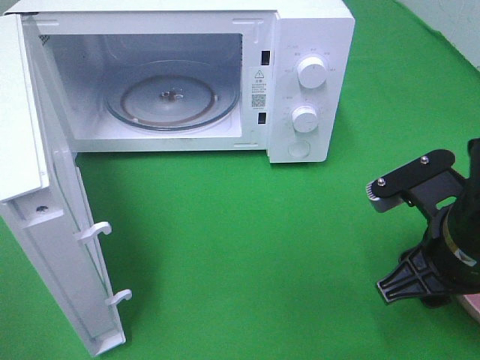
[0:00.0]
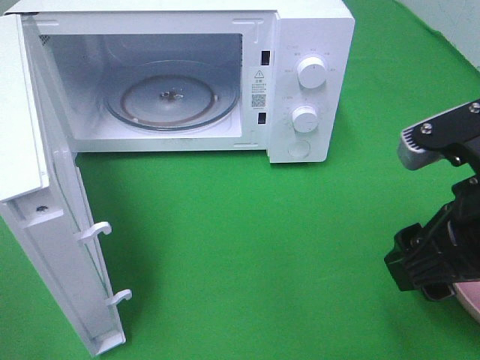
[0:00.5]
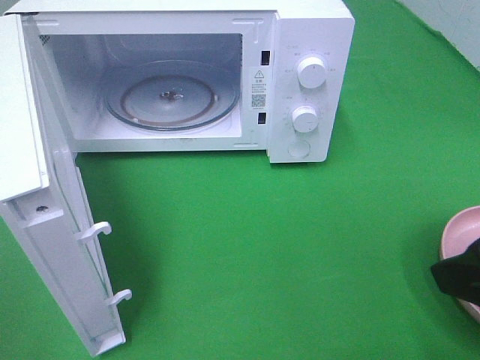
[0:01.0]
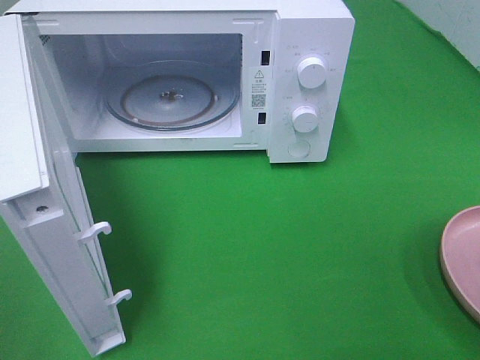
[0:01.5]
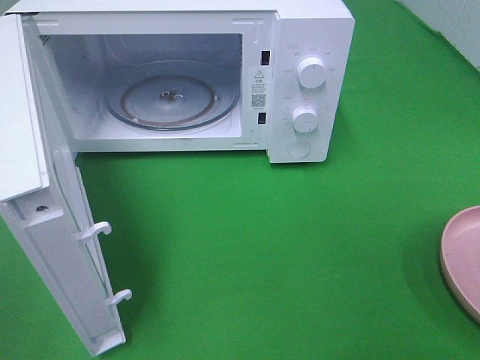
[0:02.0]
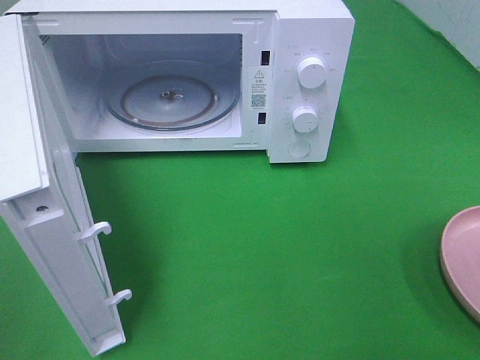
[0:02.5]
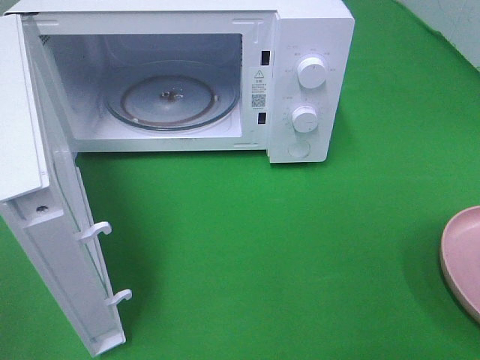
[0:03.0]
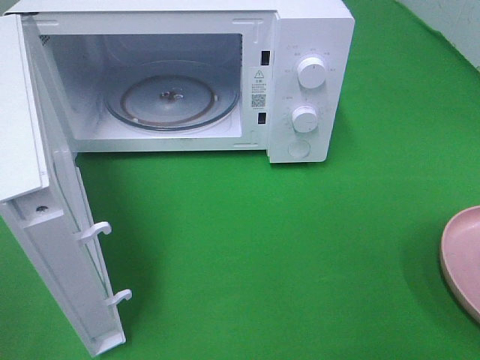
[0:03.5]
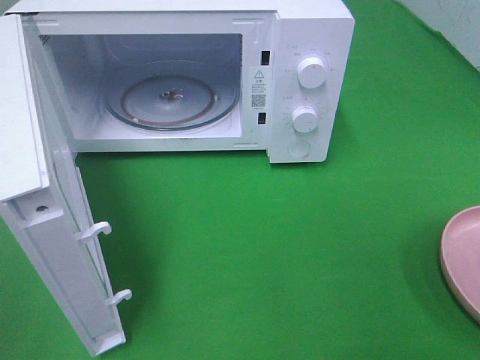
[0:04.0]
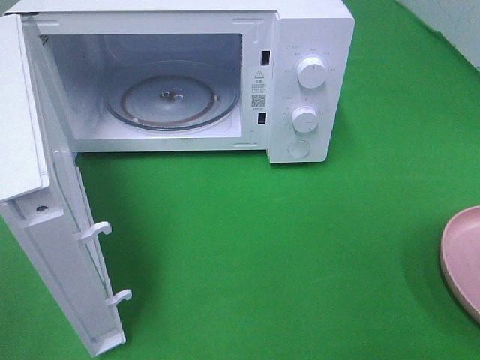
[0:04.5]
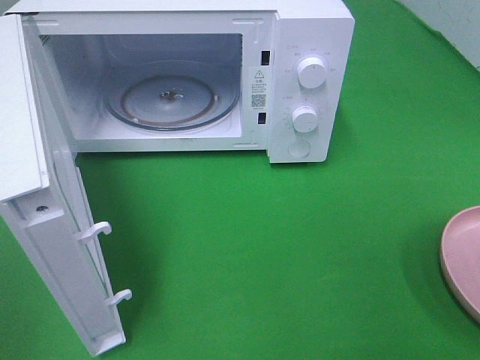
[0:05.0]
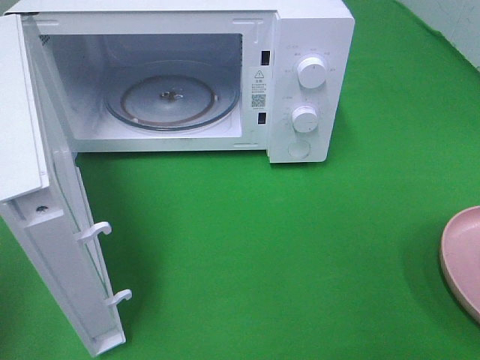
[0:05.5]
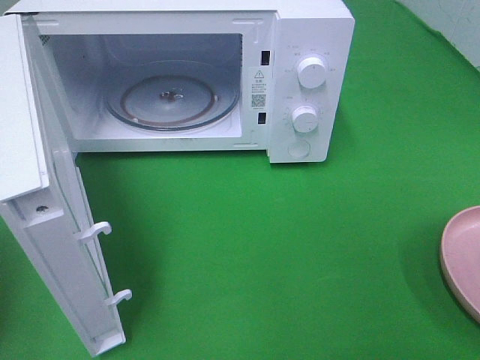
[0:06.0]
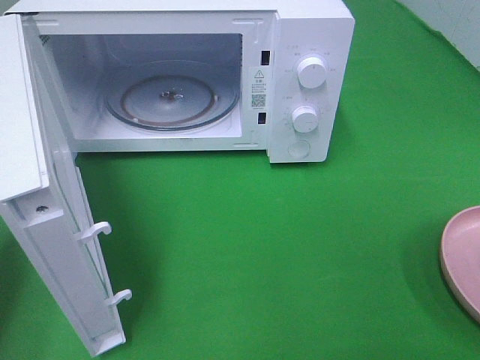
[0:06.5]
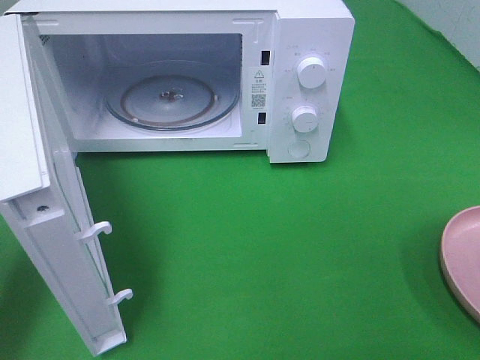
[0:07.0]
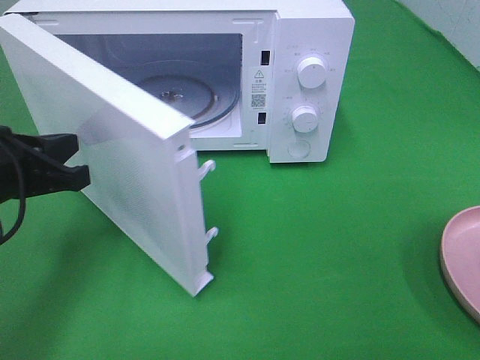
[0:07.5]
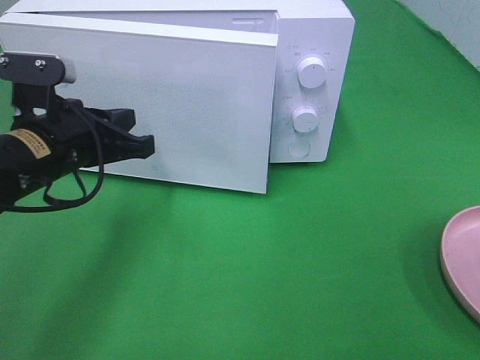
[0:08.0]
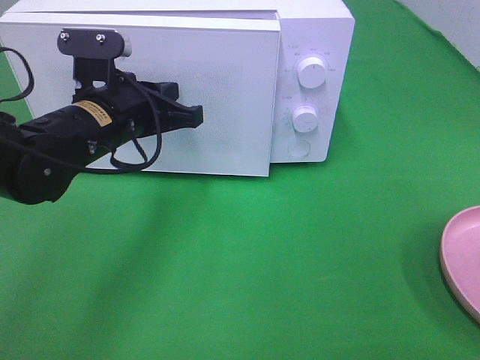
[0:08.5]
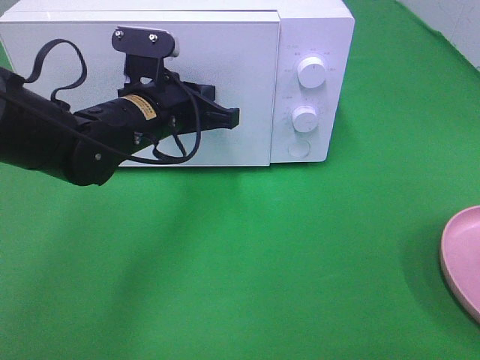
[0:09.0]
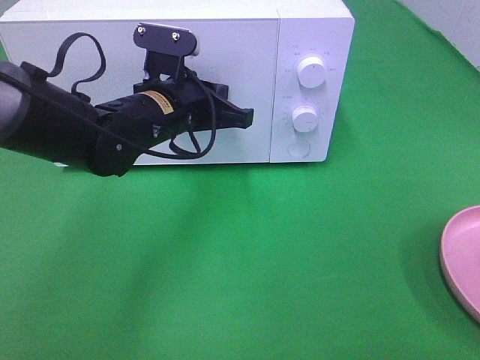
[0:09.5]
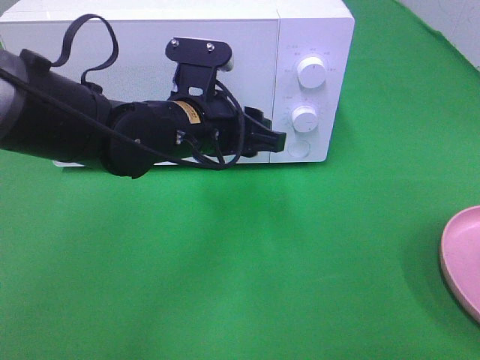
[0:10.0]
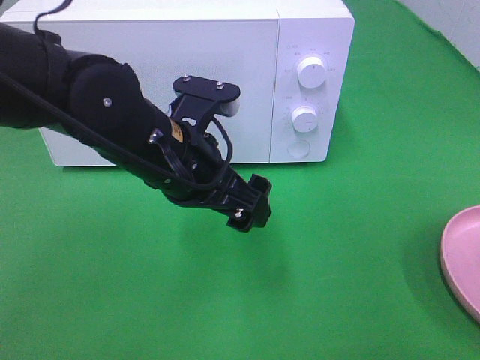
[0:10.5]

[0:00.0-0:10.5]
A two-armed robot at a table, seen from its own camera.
Task of the whole recording: Heat the burger.
Step, 0:00.5 to 0:09.5: Left hand: close the microwave door.
0:00.0 to 0:02.0: The right gripper heads backward, upward and to the right, covering some 20 cm.
0:04.0 to 0:06.5: The left gripper moves forward and downward, some 20 cm, and closes up.
0:06.5 to 0:08.5: The left gripper moves to the right and forward, roughly 25 cm.
0:08.5 to 0:10.5: The left gripper heads to the right and backward, covering roughly 10 cm, and opens.

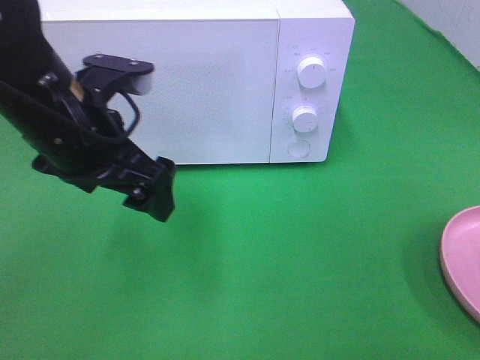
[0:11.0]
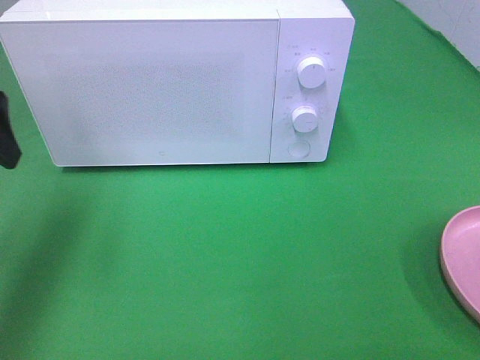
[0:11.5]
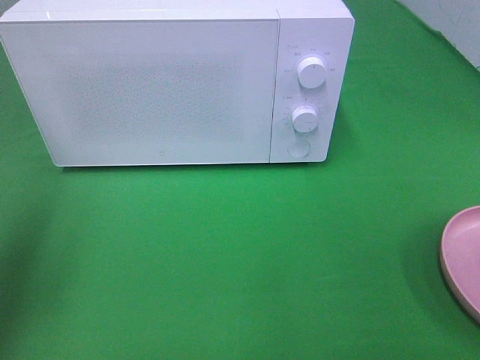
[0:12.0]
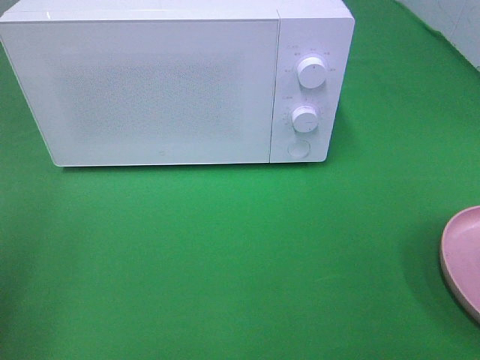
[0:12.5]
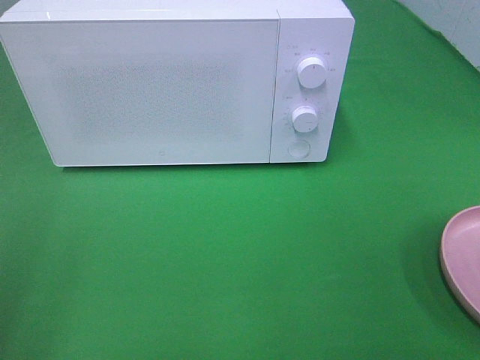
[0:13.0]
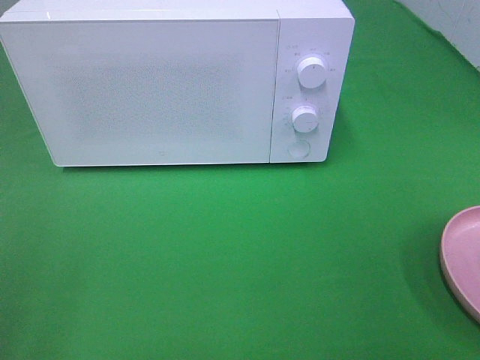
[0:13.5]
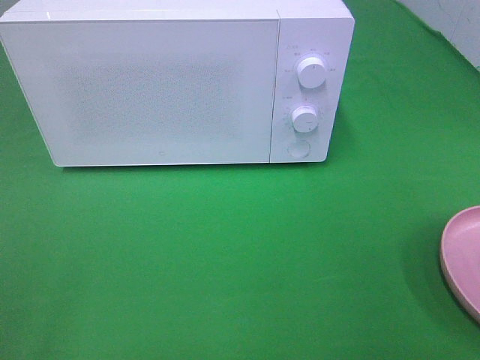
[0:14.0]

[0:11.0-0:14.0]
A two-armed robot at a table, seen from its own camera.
Task of the whole recording: Heat the burger.
0:11.0 to 0:12.5: The left gripper shifts about 25 cm to the left and backward.

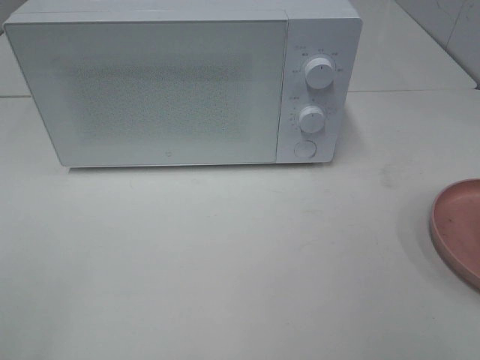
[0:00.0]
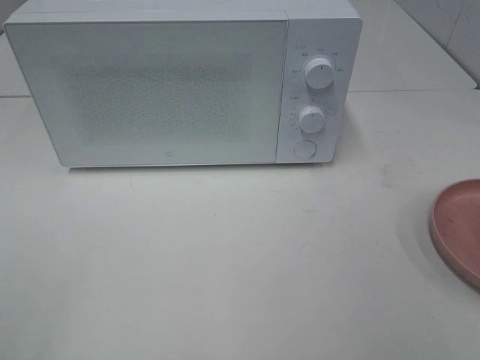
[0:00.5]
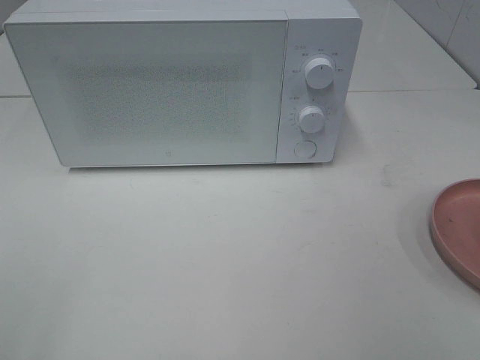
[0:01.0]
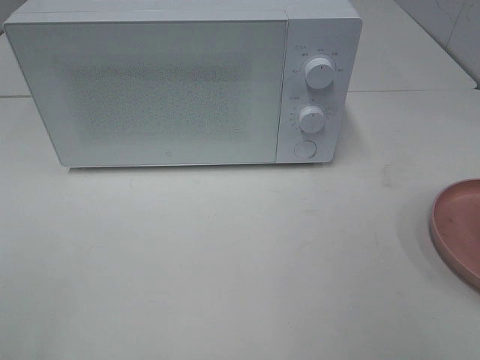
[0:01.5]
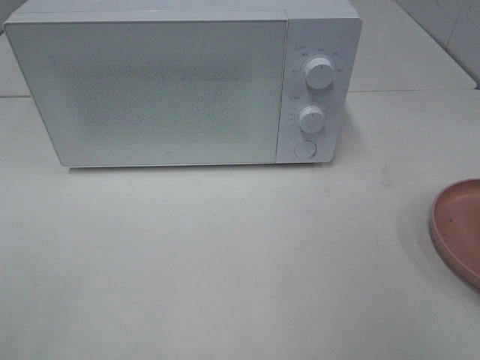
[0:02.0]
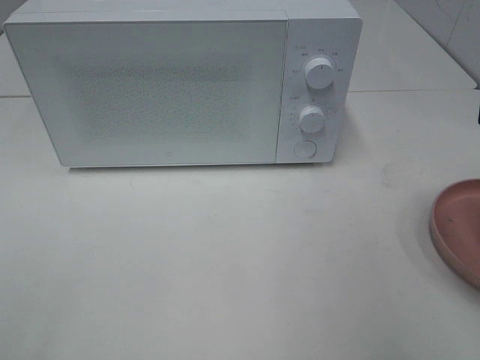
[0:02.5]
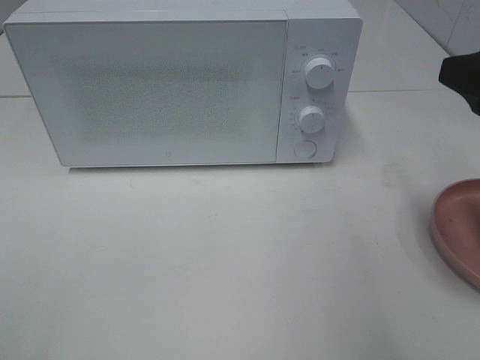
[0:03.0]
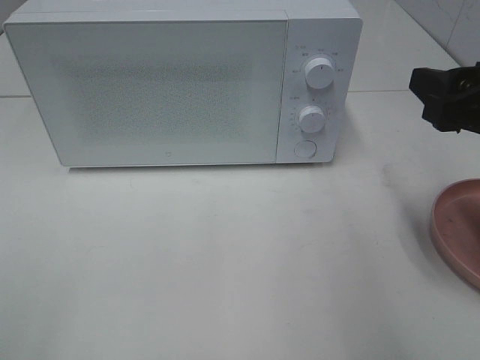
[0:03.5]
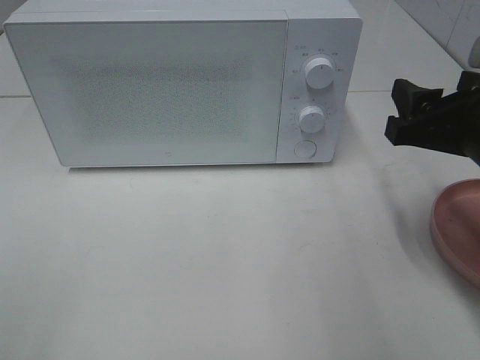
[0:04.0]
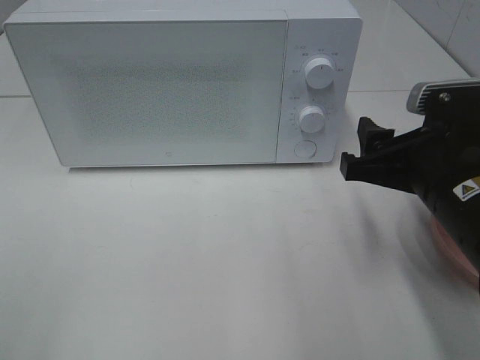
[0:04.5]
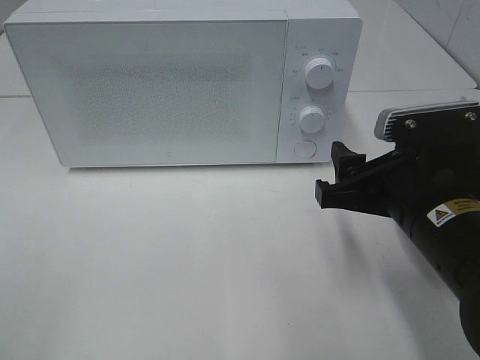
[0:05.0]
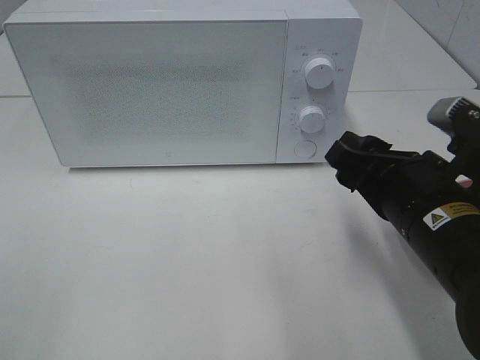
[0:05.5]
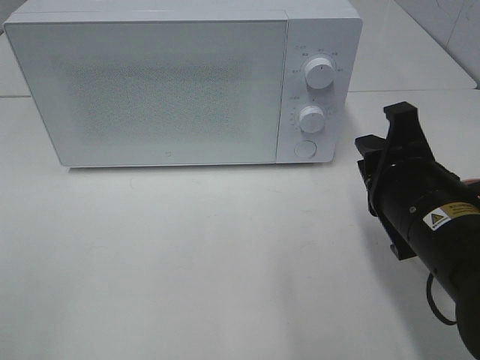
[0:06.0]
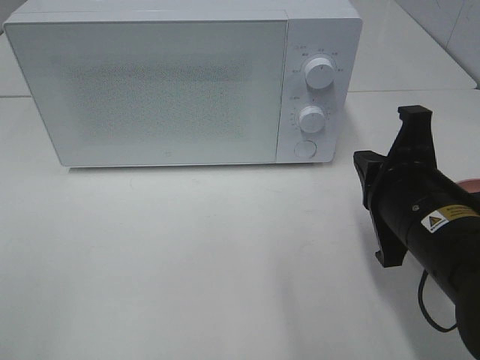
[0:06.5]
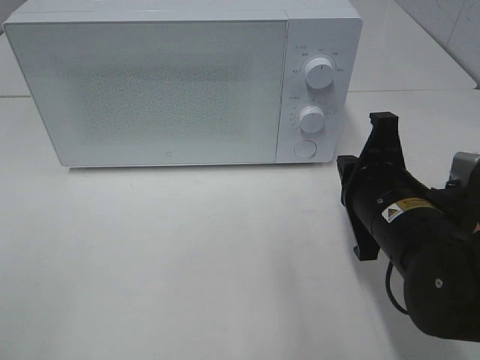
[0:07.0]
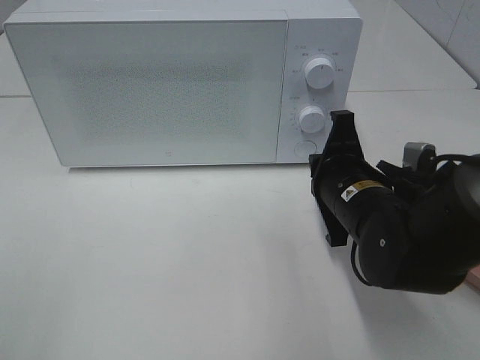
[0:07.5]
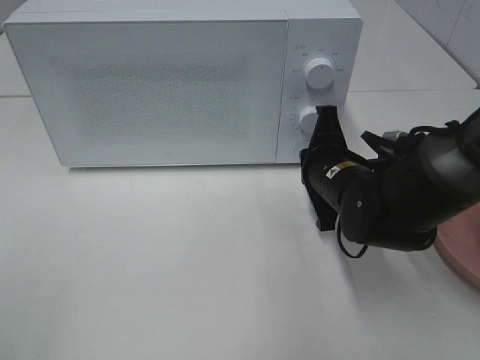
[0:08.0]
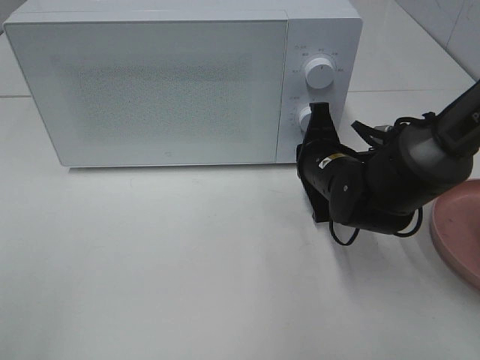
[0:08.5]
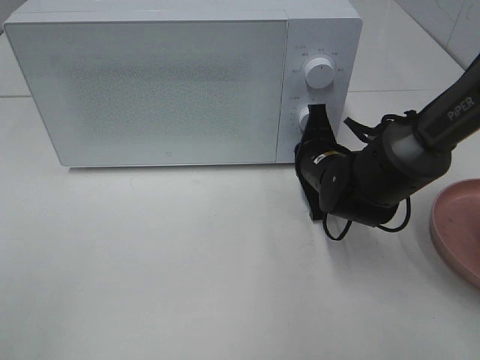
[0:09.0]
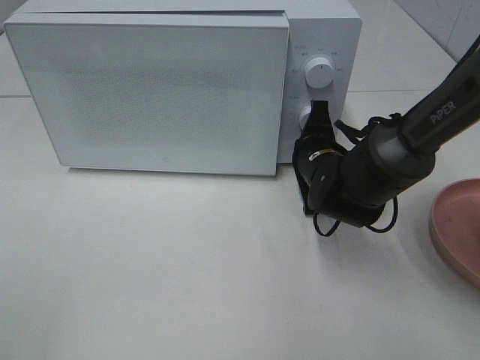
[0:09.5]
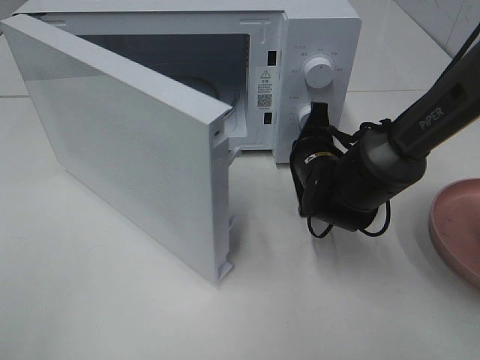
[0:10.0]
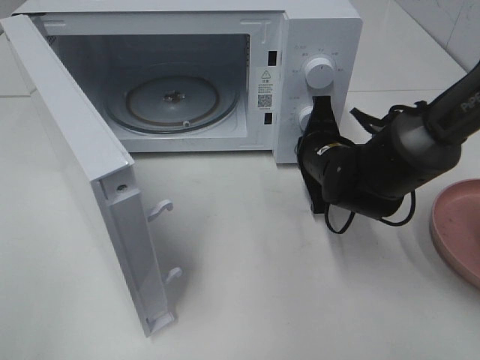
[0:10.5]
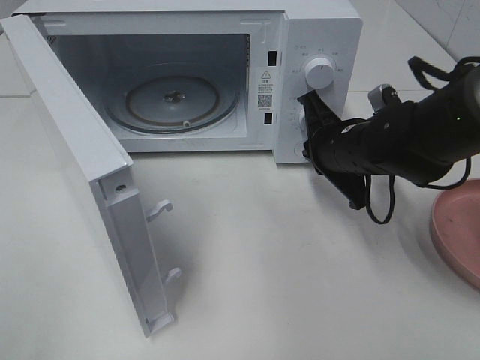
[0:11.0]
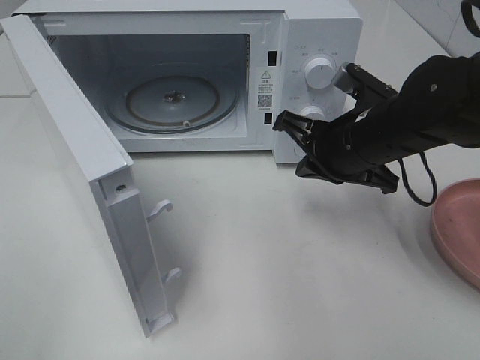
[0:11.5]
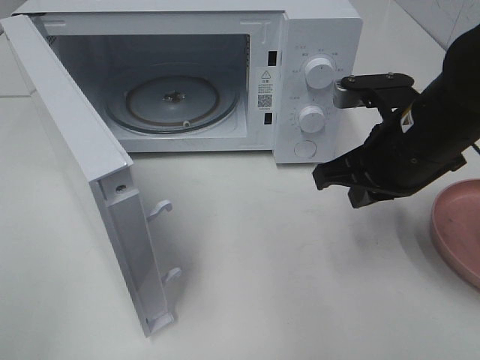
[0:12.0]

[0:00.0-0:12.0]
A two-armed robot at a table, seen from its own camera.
Task of the whole recording: Heat the burger.
Step, 0:00.0 to 0:11.0: Right hand: press the switch.
0:02.0 to 0:04.0: The right gripper heads forward and downward, covering approximately 15 cm.
0:04.0 to 0:06.0: The right gripper travels to the left and downward by approximately 10 cm, and closes.
0:06.0 to 0:08.0: The right gripper is displaced forward and downward by about 15 cm.
0:08.0 to 0:10.0: The right gripper shifts approximately 5 cm forward.
0:10.0 to 0:12.0: The right gripper goes approximately 15 cm upward and backward.
